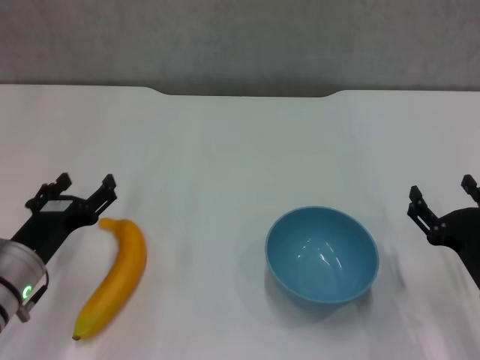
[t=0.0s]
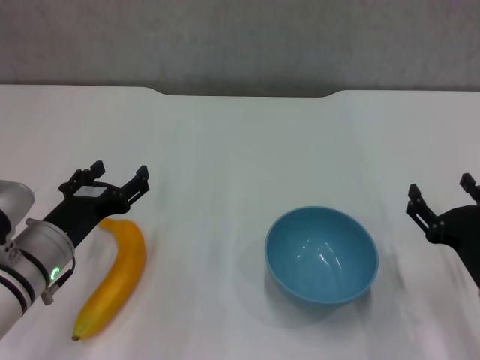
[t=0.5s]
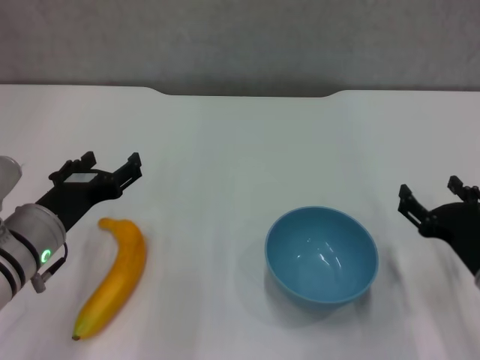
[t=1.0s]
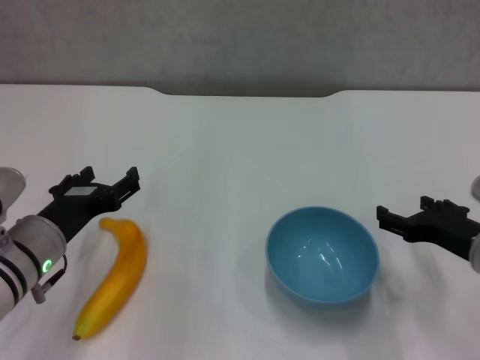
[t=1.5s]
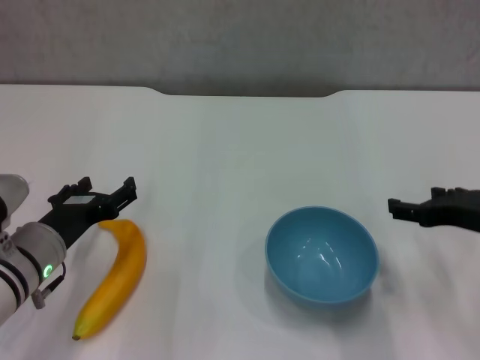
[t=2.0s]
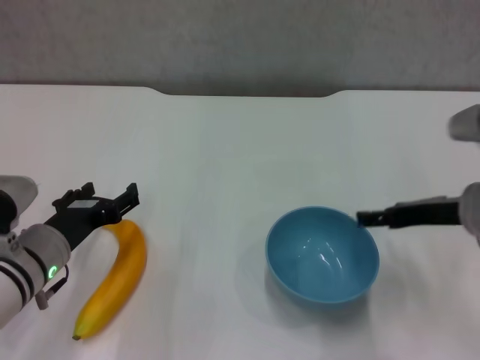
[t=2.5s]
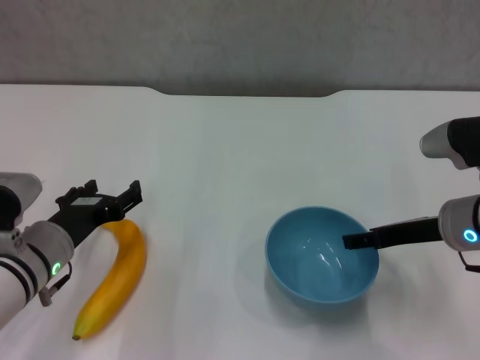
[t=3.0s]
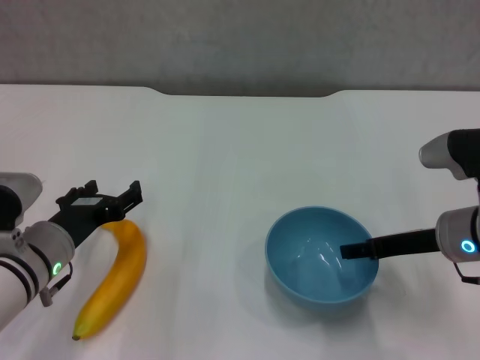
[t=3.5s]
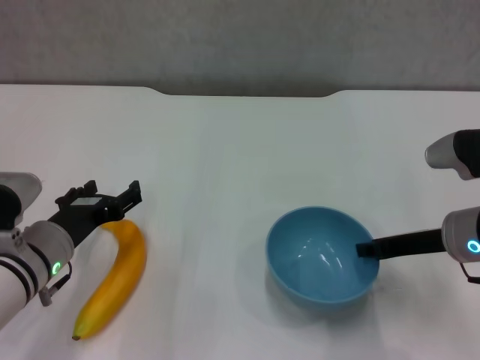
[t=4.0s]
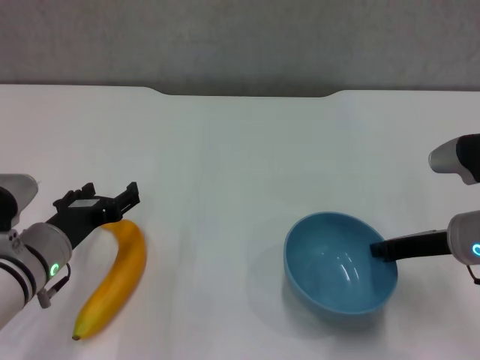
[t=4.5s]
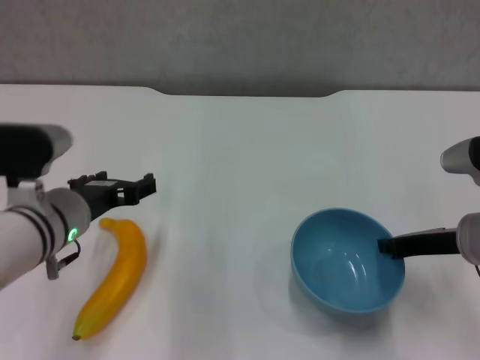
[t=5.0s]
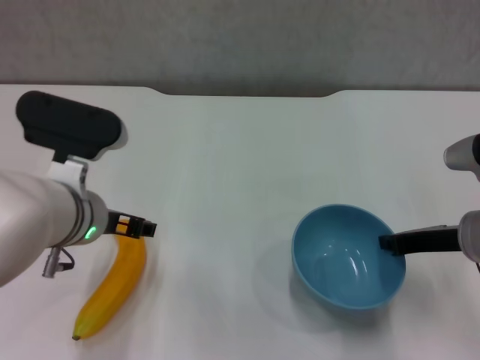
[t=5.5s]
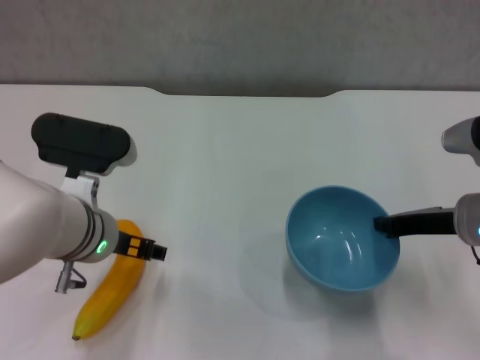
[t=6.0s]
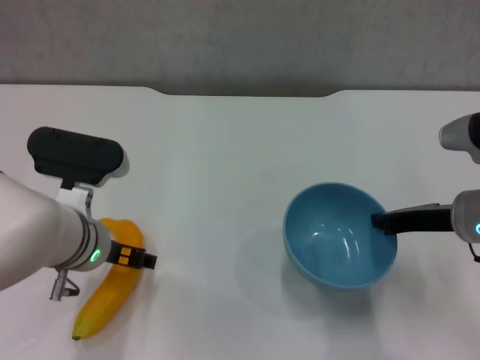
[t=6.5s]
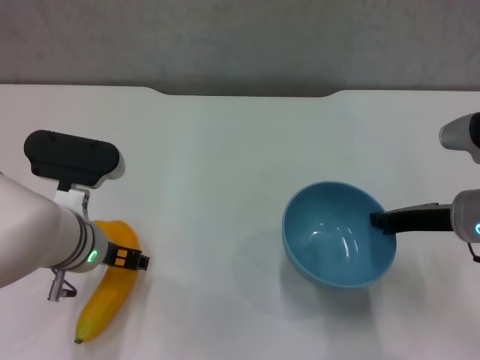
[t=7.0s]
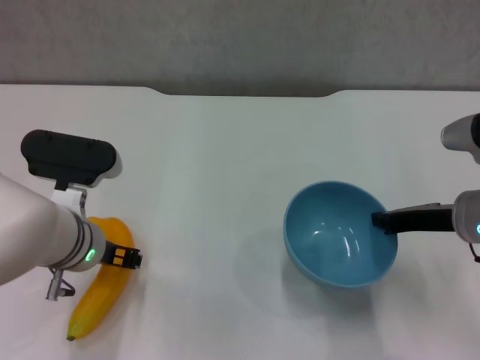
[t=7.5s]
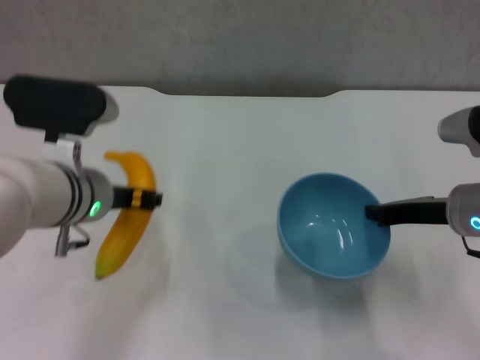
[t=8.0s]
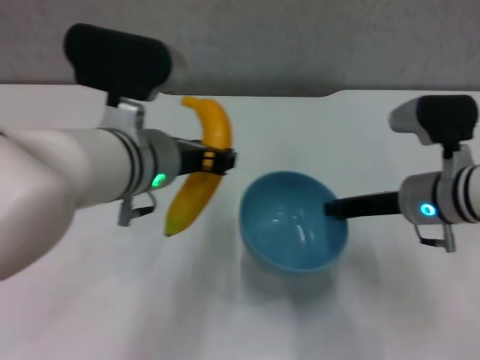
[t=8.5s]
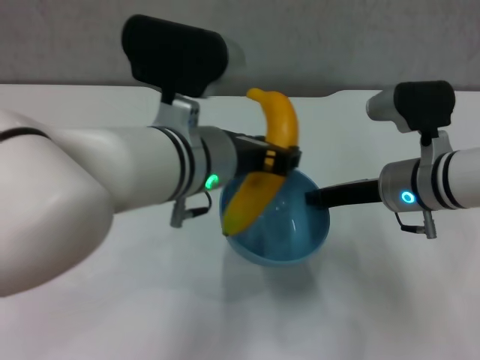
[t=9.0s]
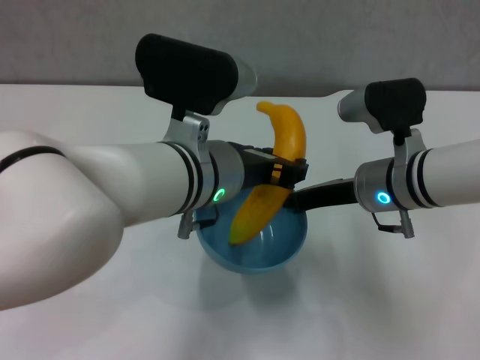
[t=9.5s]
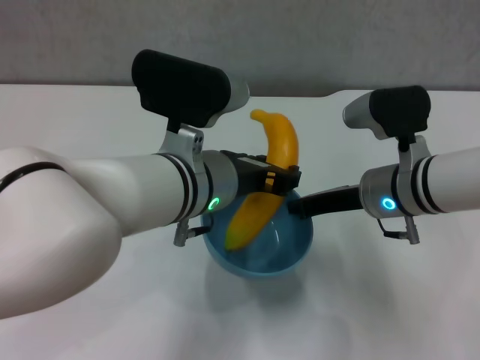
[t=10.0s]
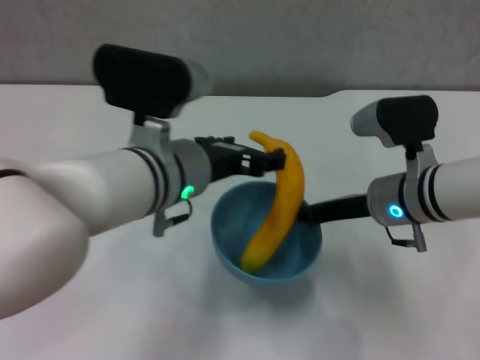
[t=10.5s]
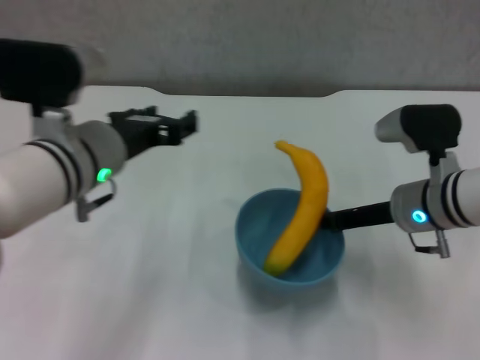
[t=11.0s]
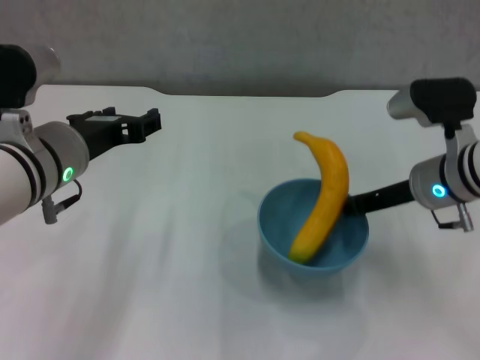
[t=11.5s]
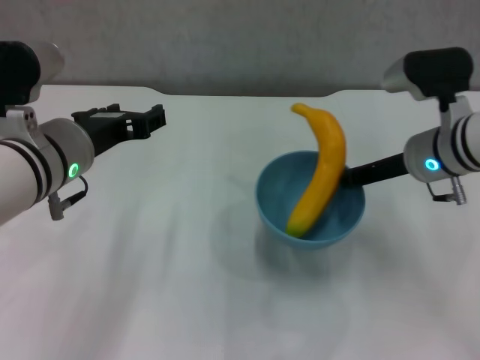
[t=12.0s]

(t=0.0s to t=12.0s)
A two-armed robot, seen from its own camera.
Step, t=0.0s - t=4.0s: Grasp the blue bowl with right gripper.
Step, t=4.5s - t=6.0s: Lift the blue bowl with right gripper.
Step, t=6.5s - t=7.0s: Grasp the banana with left gripper.
Step, t=7.5s - t=10.0s: Place the banana in the blue bowl with left gripper.
t=0.0s - t=2.0s: The right gripper moves upward and forward, some 15 cm.
t=2.0s - t=4.0s: The right gripper ends up some 5 cm from where it was, and closes its fingers.
t=4.0s - t=6.0s: The left gripper moves upward and to the right, about 10 cm; the right gripper closes its fingers.
t=6.0s - t=8.0s: The left gripper closes its fingers.
t=8.0s - t=10.0s: The left gripper is displaced to the right by roughly 10 cm. Meanwhile the right gripper is displaced to the left by about 10 cm.
t=10.0s - t=12.0s: The left gripper moves to the left, roughly 10 cm, and opens up, while the right gripper moves approximately 5 cm.

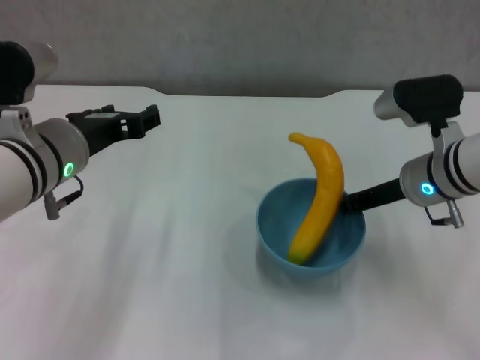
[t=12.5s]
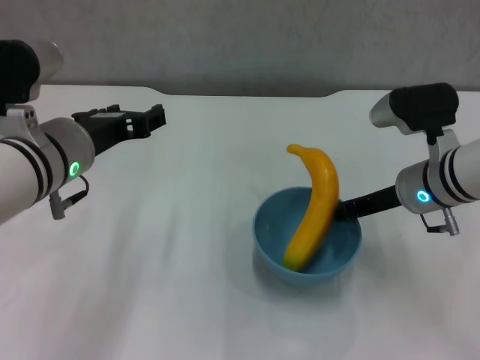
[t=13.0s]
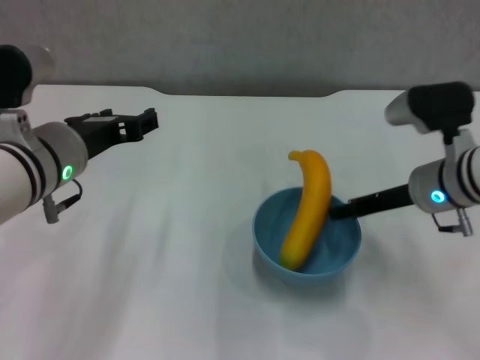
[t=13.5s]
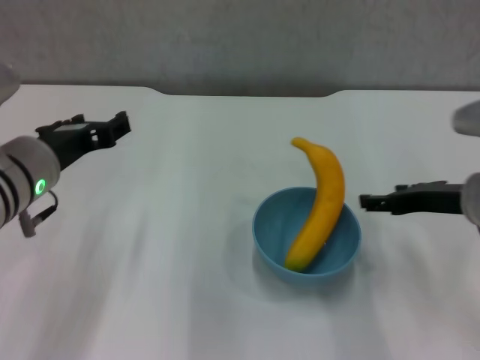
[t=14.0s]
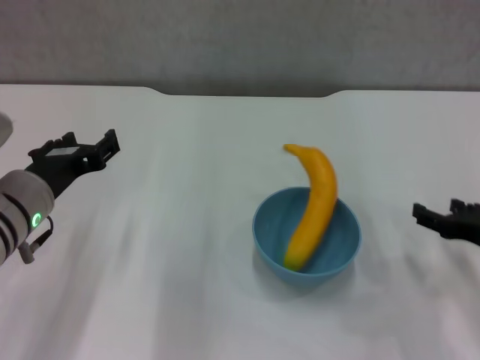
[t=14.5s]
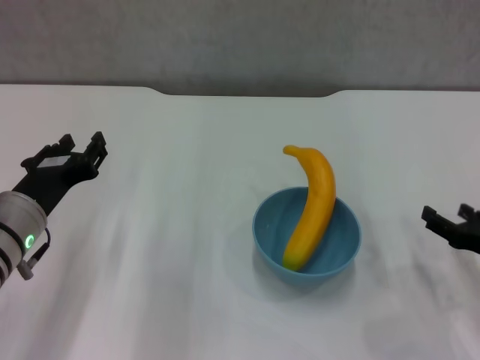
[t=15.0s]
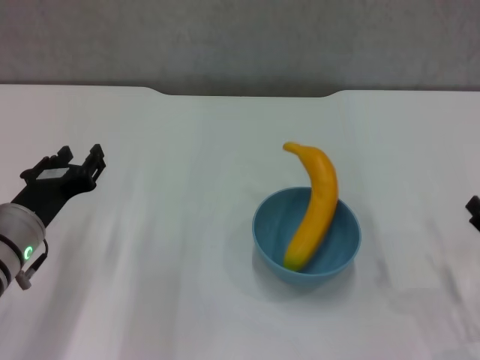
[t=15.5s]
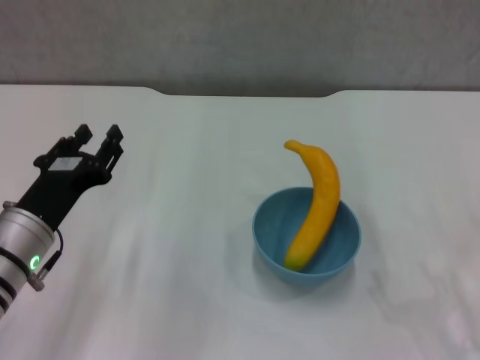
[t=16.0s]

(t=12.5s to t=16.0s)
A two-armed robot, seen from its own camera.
t=12.5s - t=14.5s: The left gripper goes about 5 cm downward; the right gripper travels to the right and backward by approximately 15 cm, and opens.
t=14.5s - t=16.0s: The right gripper heads backward, covering some 10 cm, while the left gripper shifts by about 5 cm, and closes.

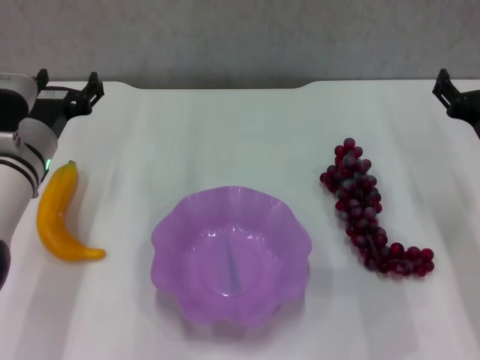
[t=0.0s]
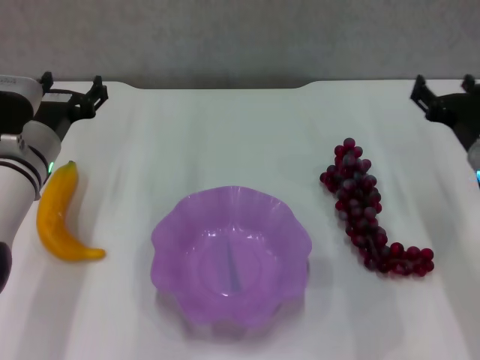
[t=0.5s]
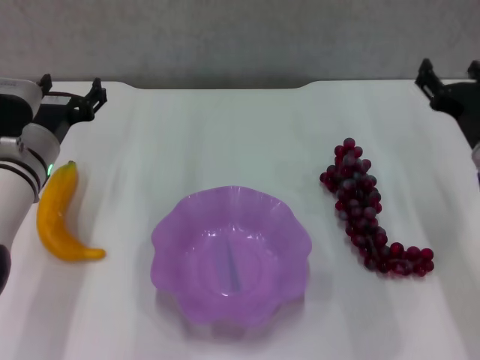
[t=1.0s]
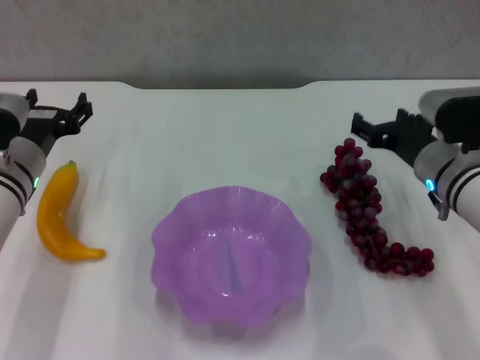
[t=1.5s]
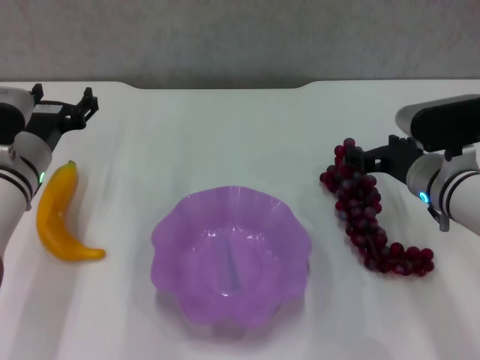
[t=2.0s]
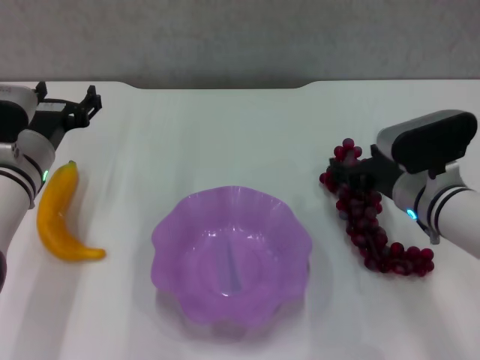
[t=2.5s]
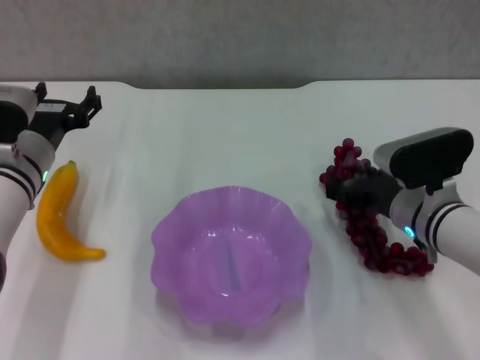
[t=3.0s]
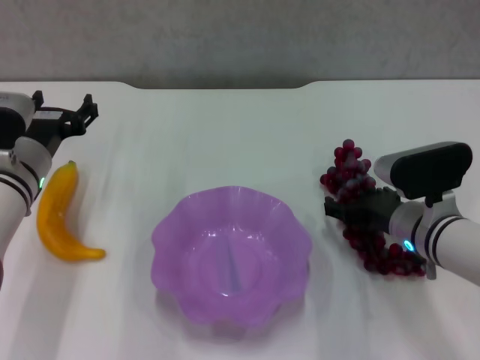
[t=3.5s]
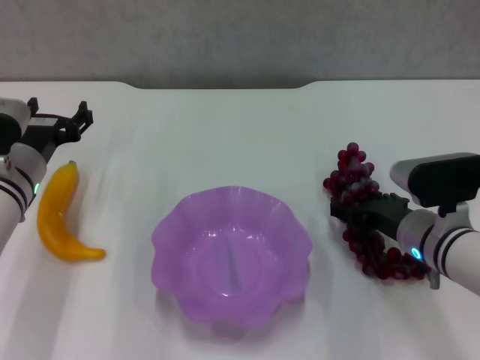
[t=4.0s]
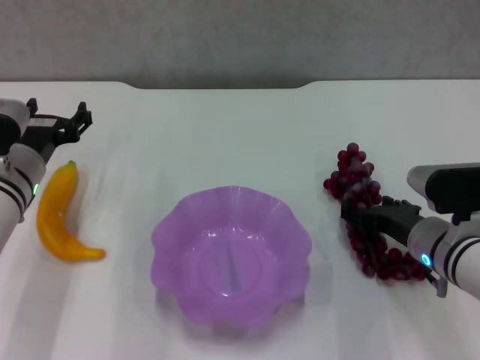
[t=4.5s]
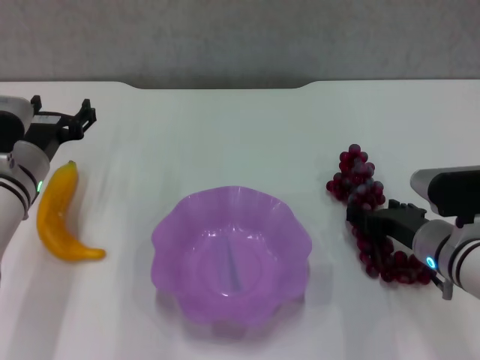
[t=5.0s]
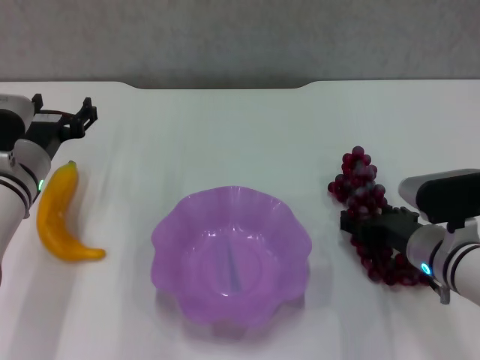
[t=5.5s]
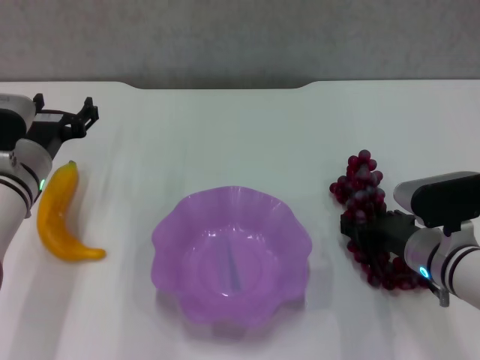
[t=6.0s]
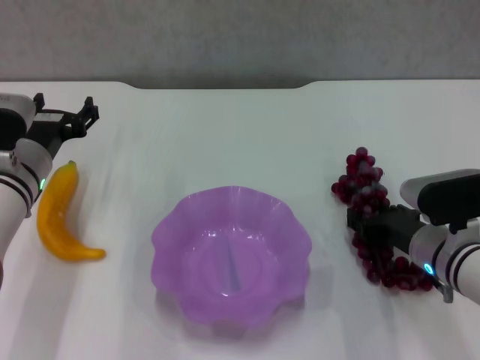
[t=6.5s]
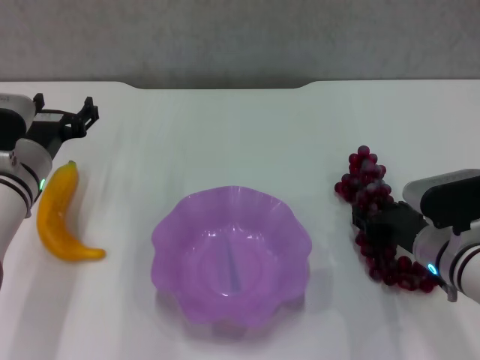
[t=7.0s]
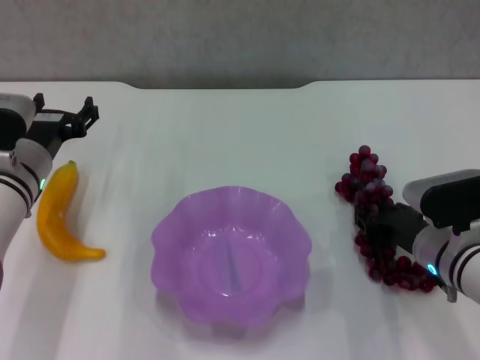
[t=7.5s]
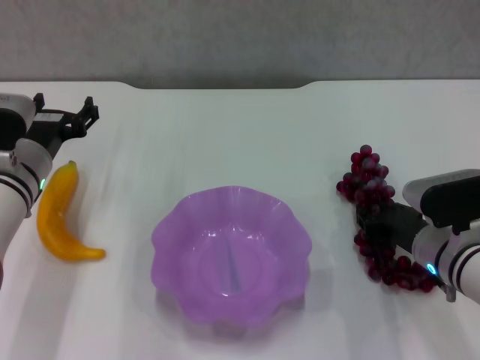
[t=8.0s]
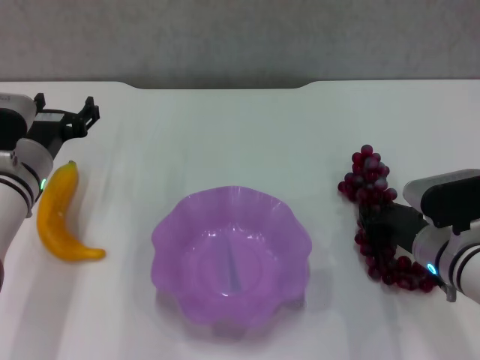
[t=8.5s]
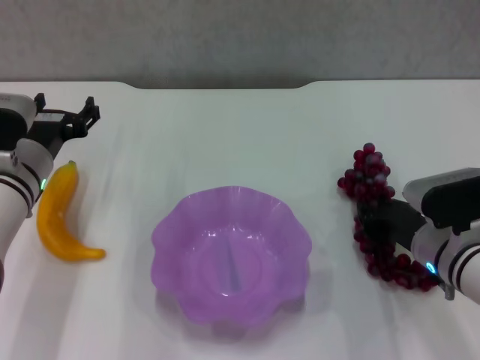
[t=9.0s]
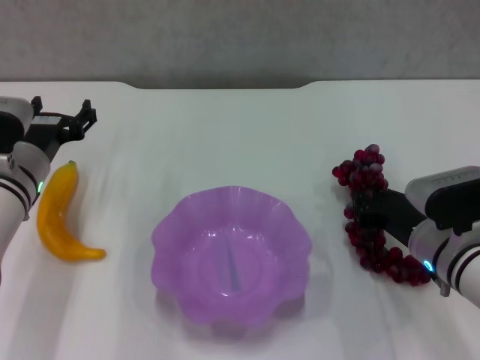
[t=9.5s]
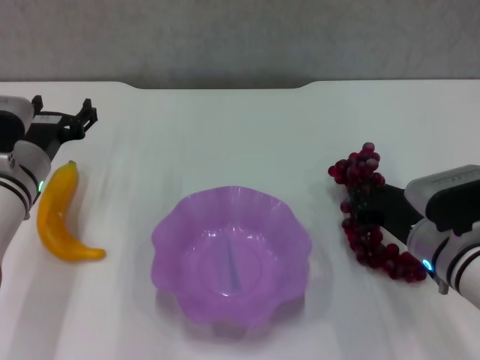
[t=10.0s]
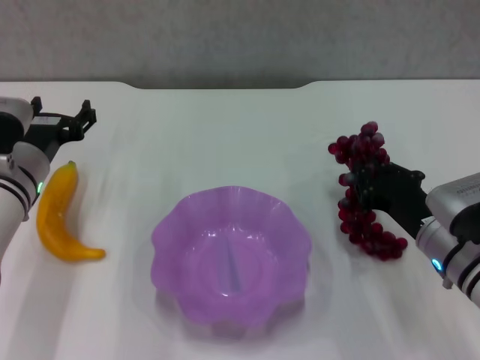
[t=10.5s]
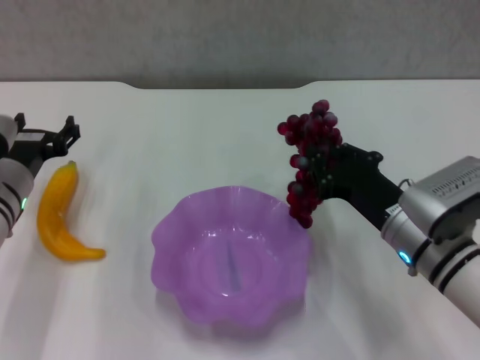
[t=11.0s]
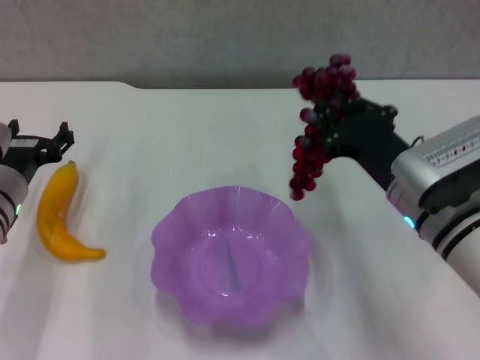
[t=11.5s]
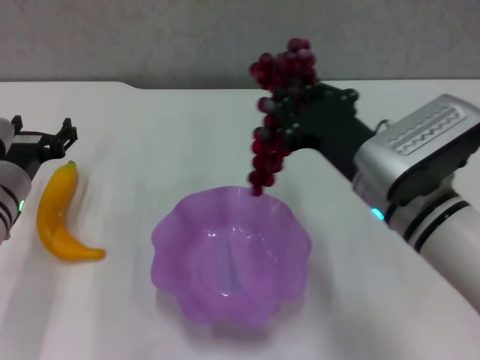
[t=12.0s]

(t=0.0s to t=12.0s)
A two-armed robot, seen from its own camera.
Step, t=0.0s - t=8.5s: Grasp the grape with right gripper.
t=0.0s - t=2.0s: The right gripper travels to the left by some 5 cm.
t=2.0s - t=4.0s: The right gripper moves some 5 cm.
t=4.0s - t=6.0s: The grippers stay close to where they were, moving slightly.
t=6.0s - t=8.0s: The right gripper closes up.
t=8.0s - t=10.0s: The grippers make only small movements.
t=10.0s - t=12.0s: The right gripper travels upward and to the left by about 15 cm.
